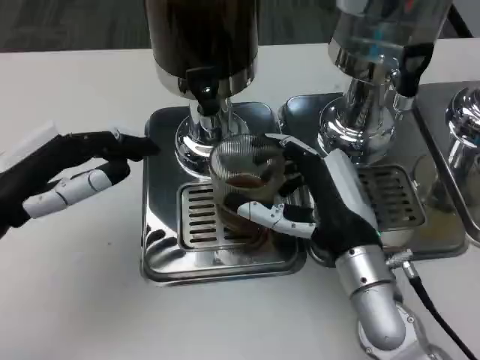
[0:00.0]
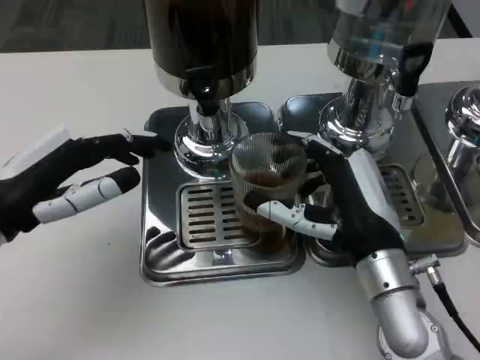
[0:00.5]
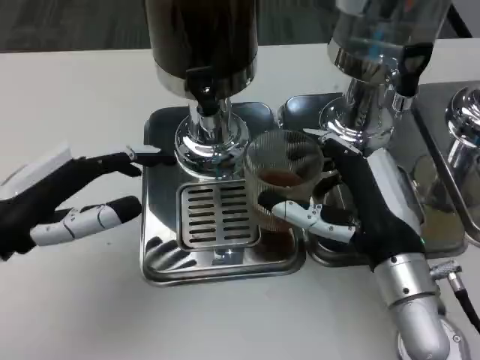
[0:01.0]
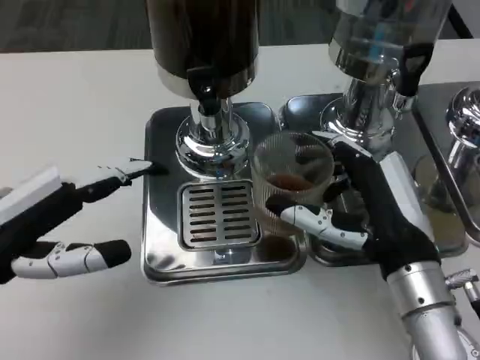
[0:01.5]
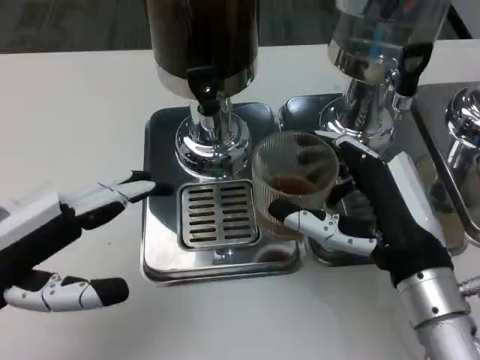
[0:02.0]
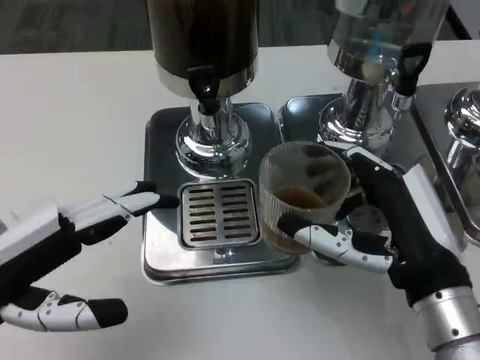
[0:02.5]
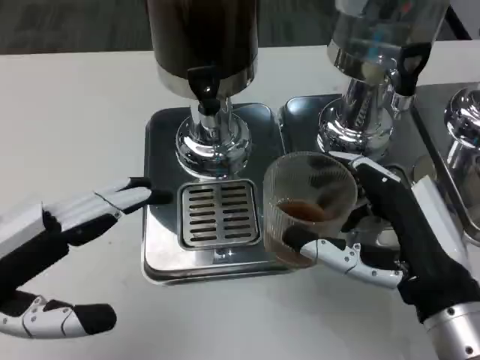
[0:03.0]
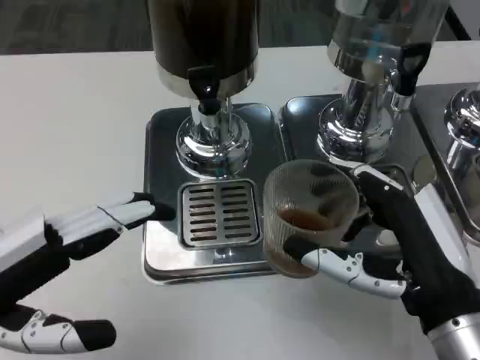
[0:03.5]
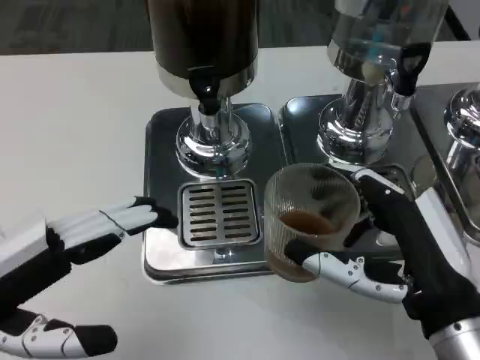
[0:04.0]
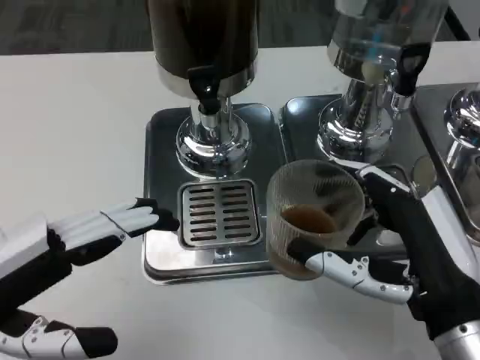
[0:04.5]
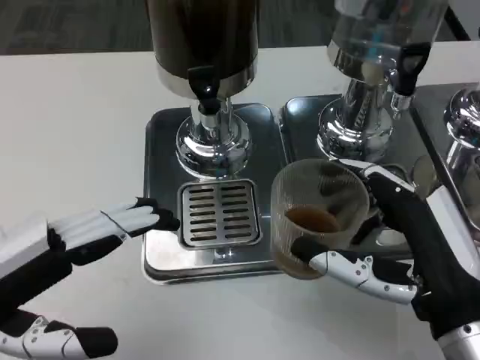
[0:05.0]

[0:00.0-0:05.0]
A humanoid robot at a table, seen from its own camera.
Task of the whole recording: Grasp the cup under the faucet to collect the drink, then remove the cup.
0:00.0 to 0:02.5: The hands both shift backward by about 5 cm.
0:02.5 to 0:05.0: The hands stay close to where they were, moving slightly.

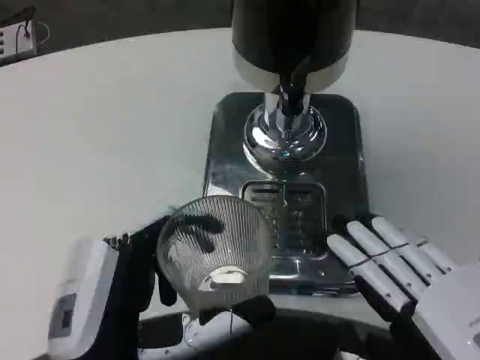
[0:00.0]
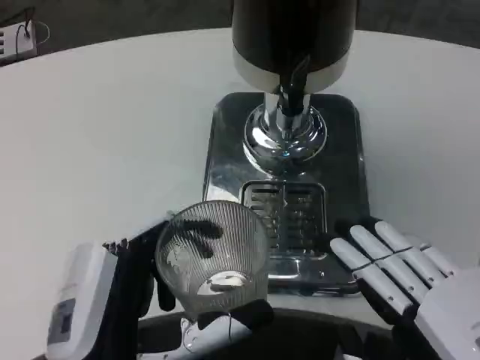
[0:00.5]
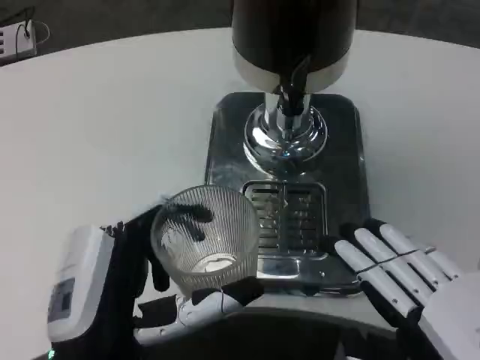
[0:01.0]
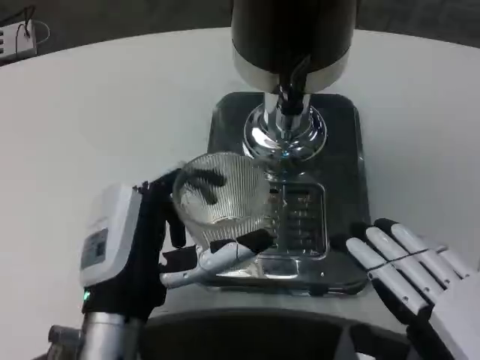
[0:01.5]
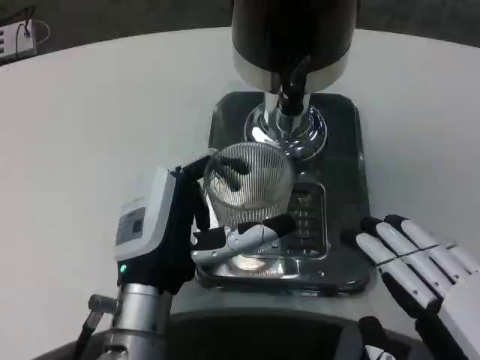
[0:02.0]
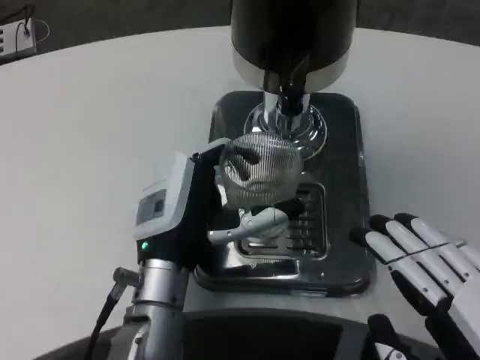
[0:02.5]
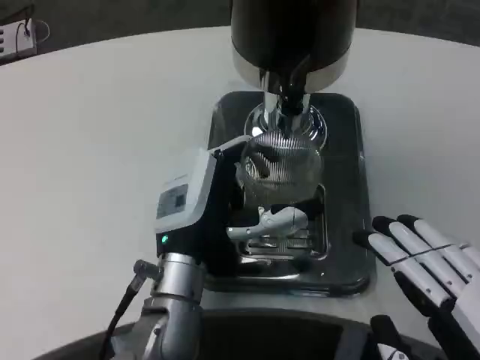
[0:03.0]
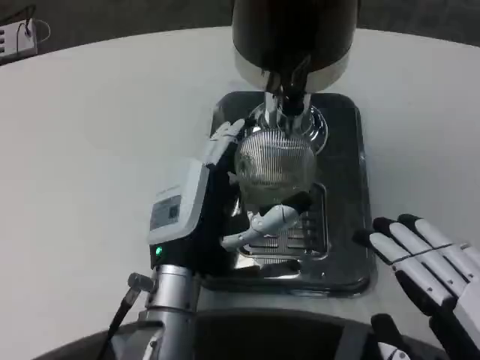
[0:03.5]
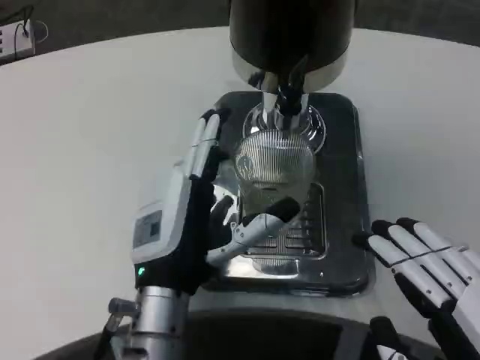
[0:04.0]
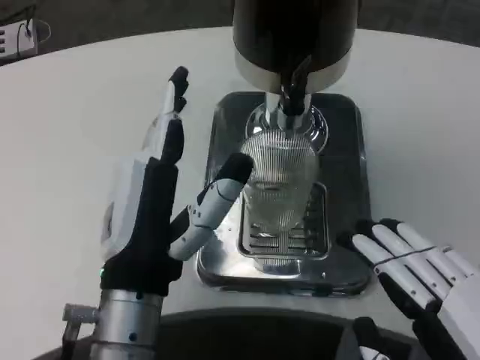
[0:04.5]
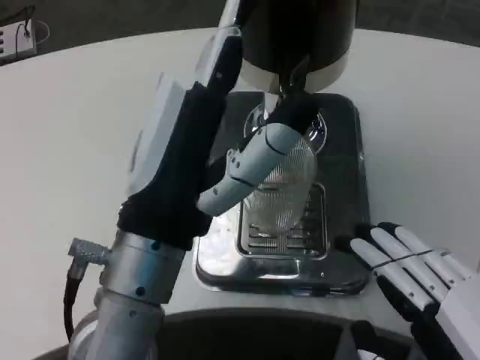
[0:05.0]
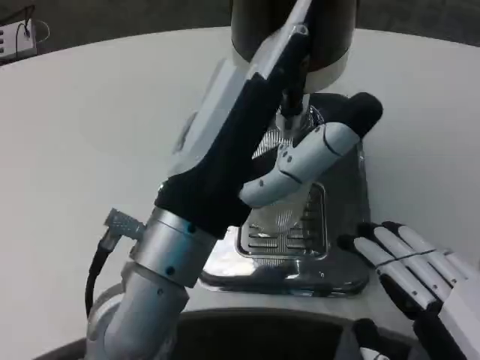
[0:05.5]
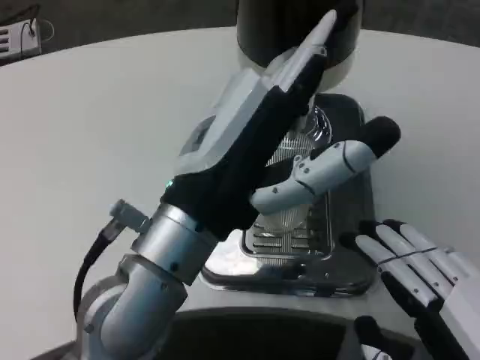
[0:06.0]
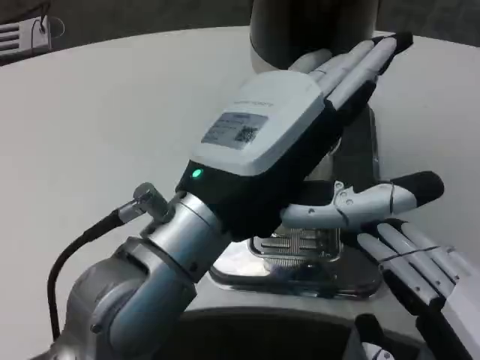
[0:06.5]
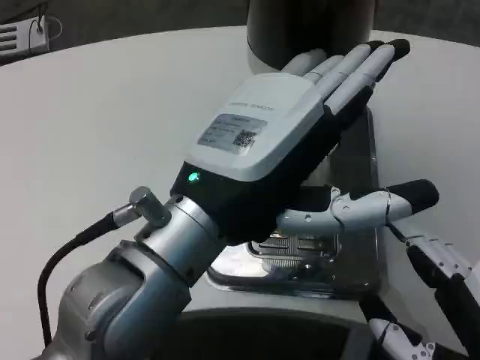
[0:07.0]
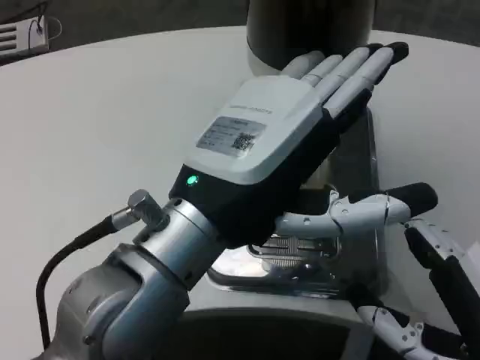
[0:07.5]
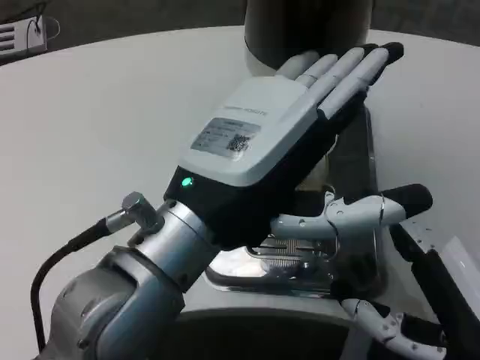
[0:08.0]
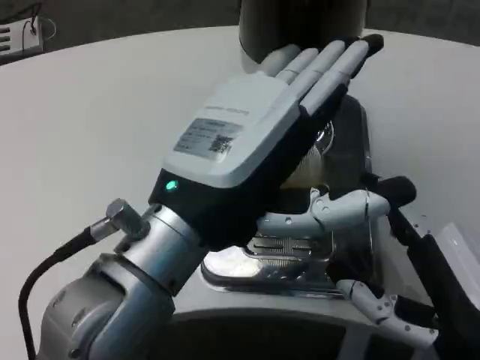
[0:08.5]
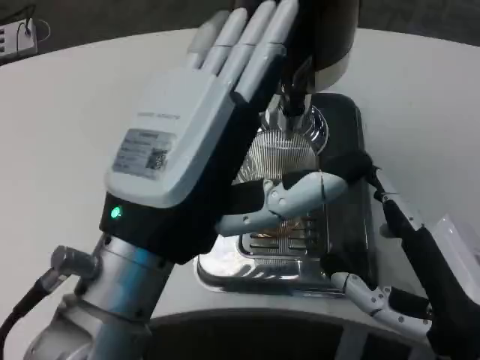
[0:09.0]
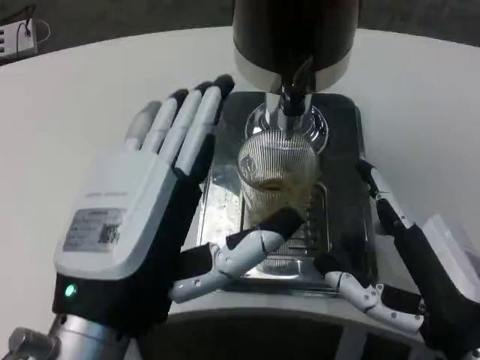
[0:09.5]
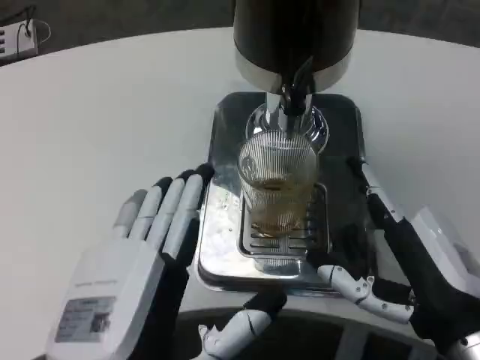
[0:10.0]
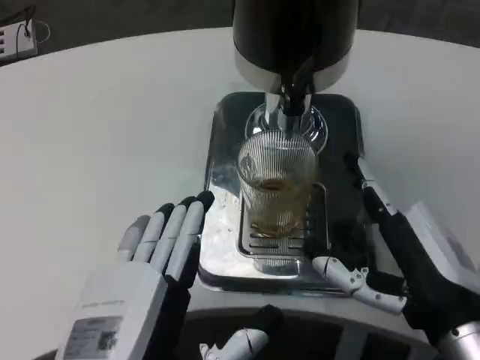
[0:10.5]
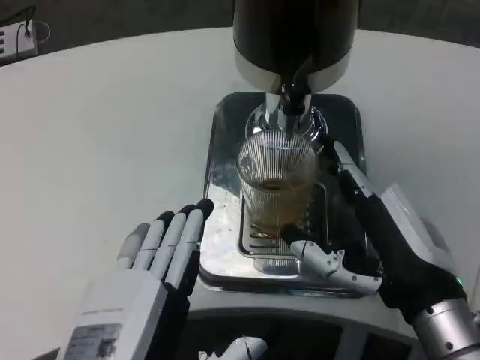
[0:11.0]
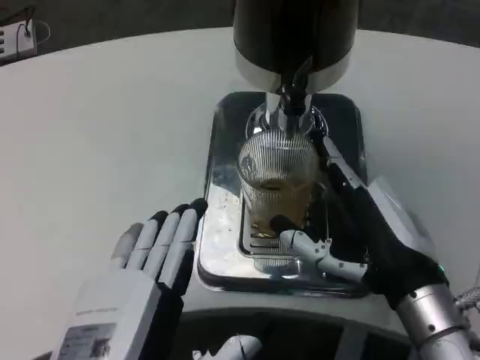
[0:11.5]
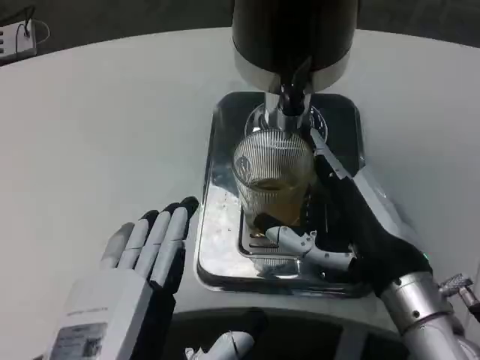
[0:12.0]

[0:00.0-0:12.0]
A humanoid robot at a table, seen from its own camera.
Task of the whole recording: Grasp the cup under the faucet to collect the drink, then remove the cup.
0:00.0 to 0:02.0: The left hand shifts roughly 10 cm forward.
0:02.0 to 0:04.0: The hands stay close to where they were, moving slightly.
0:04.0 to 0:06.0: The left hand heads upward, covering about 10 cm.
0:08.0 to 0:10.0: The left hand shifts some 15 cm downward and backward.
0:10.0 to 0:12.0: The right hand moves forward, roughly 5 cm.

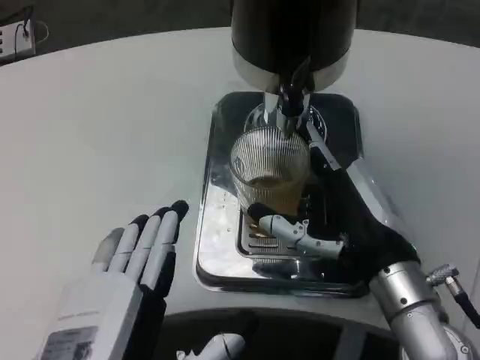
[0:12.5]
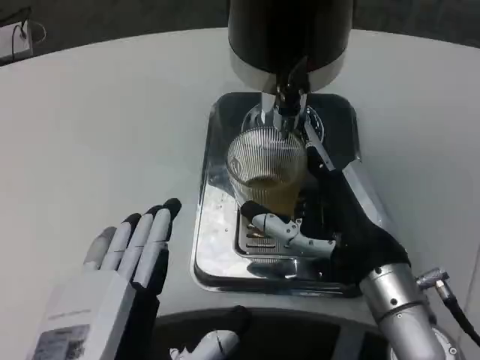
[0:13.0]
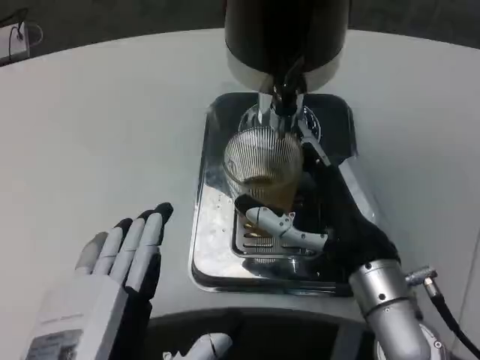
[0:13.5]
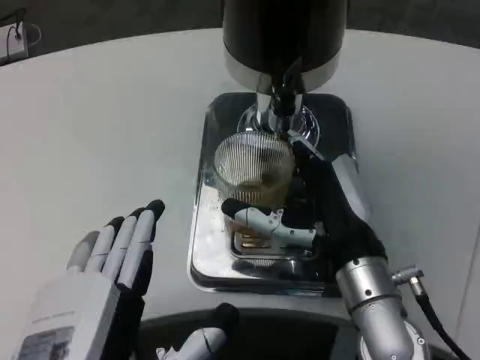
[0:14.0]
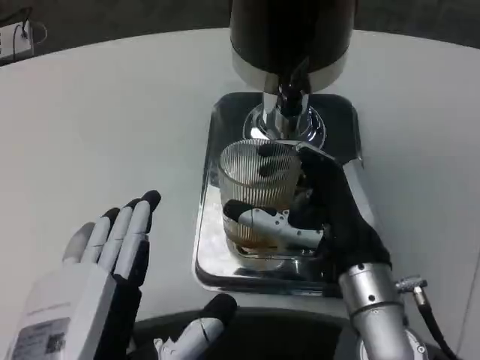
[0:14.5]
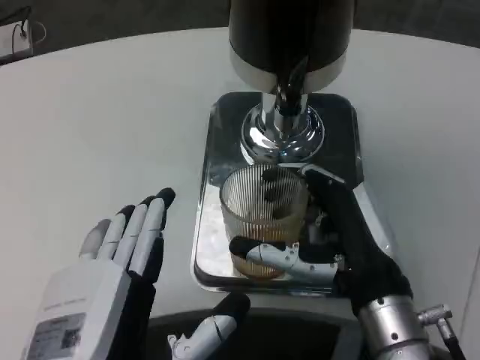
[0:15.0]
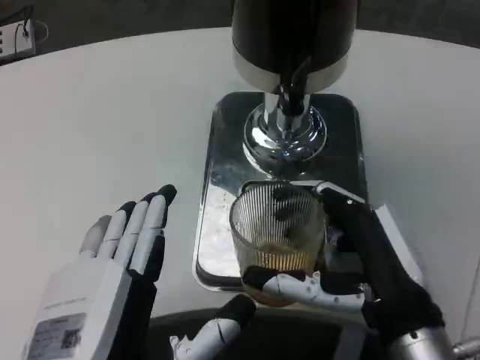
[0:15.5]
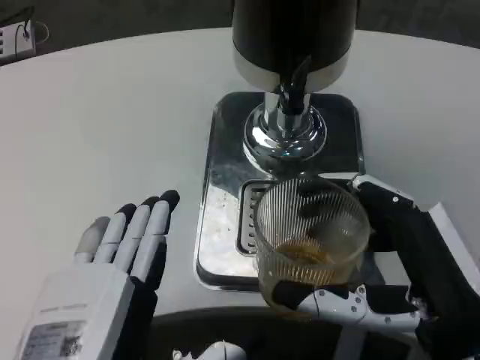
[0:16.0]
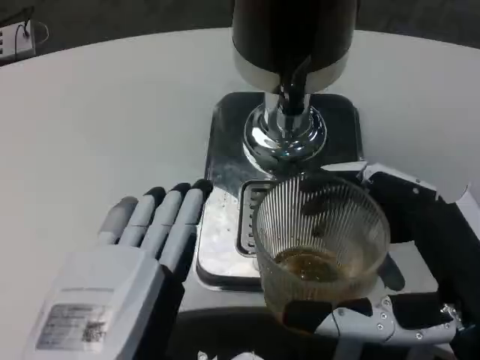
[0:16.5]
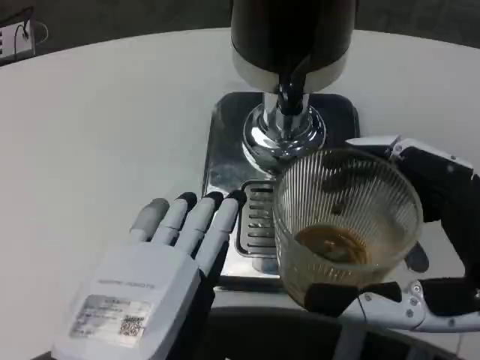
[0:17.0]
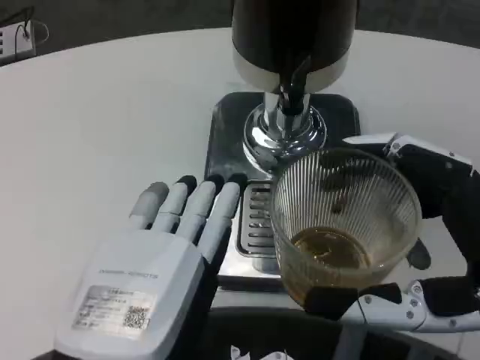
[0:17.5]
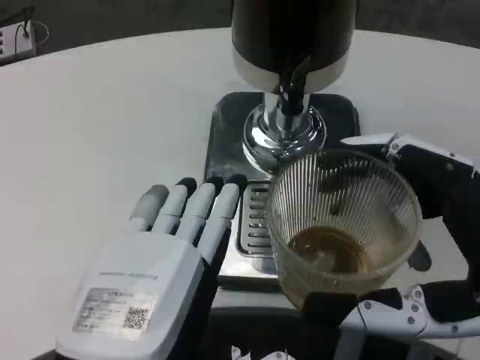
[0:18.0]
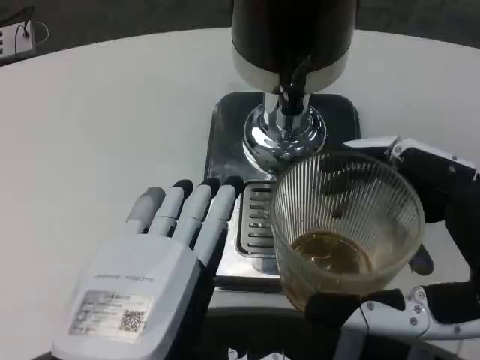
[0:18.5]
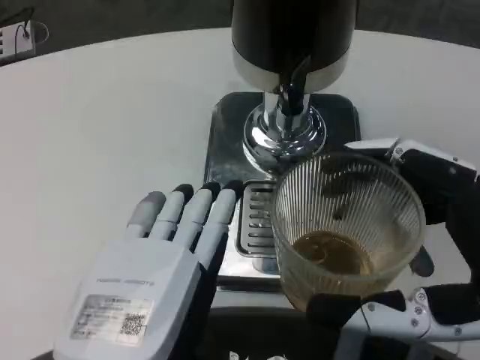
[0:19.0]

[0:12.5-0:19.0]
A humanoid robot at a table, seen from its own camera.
Task of the whole recording: Grasp the cup under the faucet to collect the drink, then remove the cup.
0:14.5 to 0:17.0: The right hand goes some 15 cm backward and to the right.
0:17.0 to 0:19.0: Both hands stay about where they are.

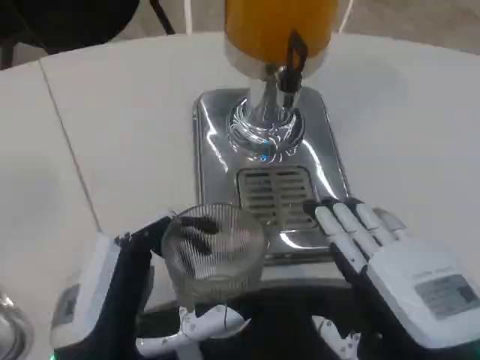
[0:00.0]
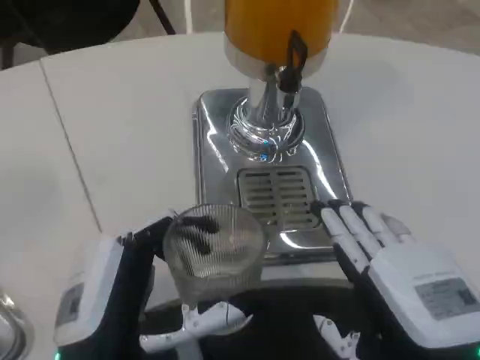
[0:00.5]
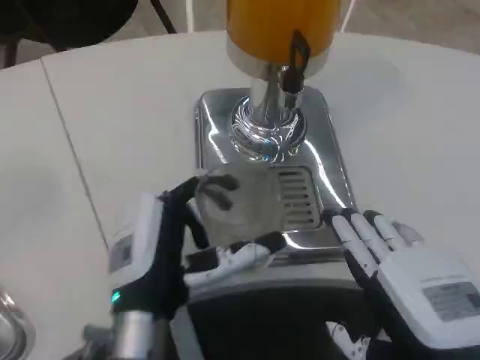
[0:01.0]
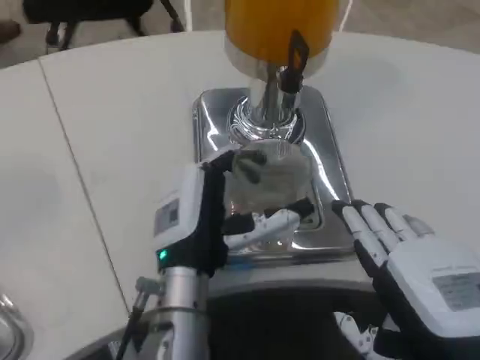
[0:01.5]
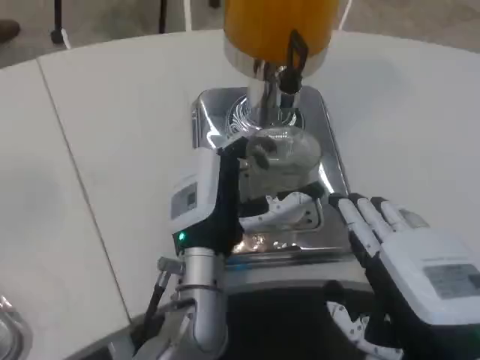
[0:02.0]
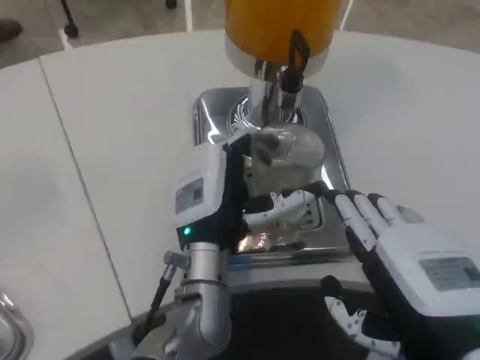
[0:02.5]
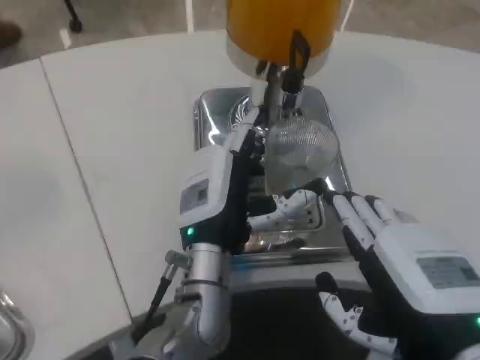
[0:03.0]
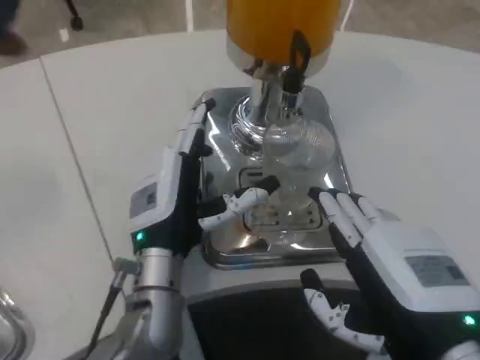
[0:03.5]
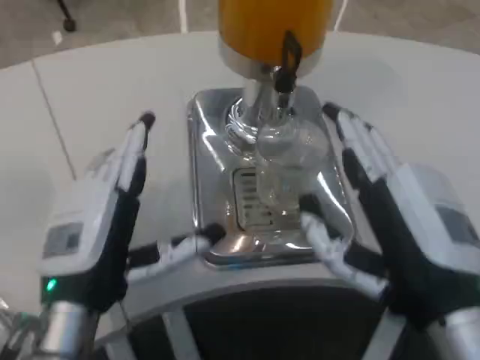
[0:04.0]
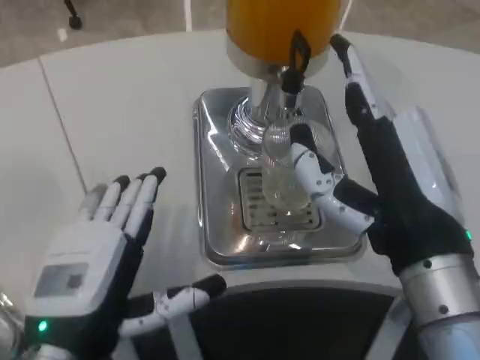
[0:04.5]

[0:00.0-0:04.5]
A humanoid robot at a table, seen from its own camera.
Task of the whole recording: Grasp the cup under the faucet to collect the drink, then remove the cup.
0:00.0 to 0:02.0: The left hand shifts about 20 cm forward and to the right.
0:02.0 to 0:04.5: The right hand changes place by some 5 cm. Meanwhile the left hand travels backward and to the left by about 20 cm.